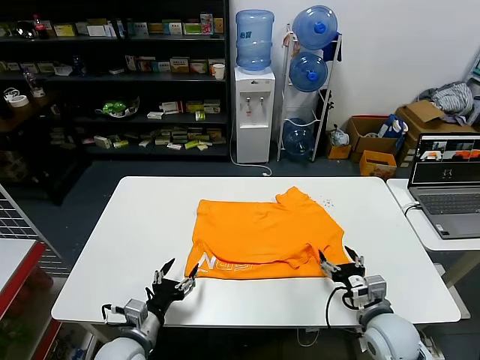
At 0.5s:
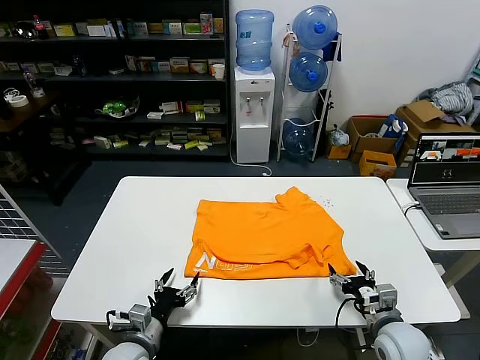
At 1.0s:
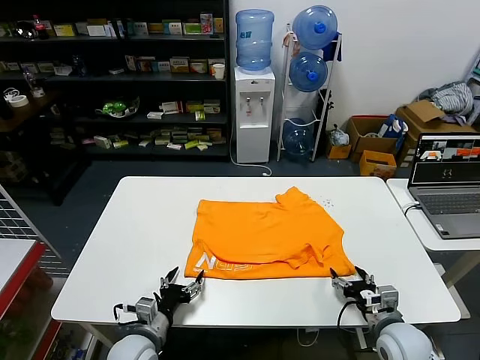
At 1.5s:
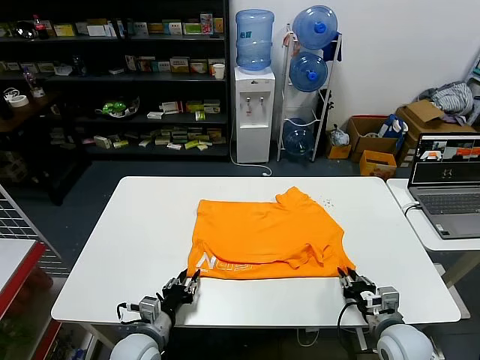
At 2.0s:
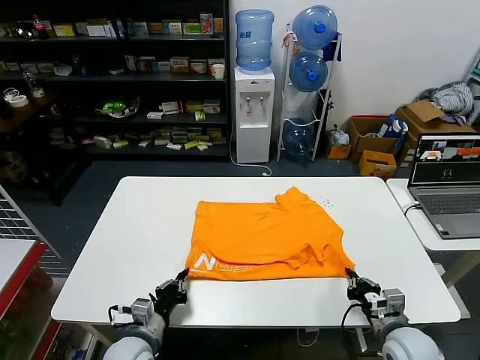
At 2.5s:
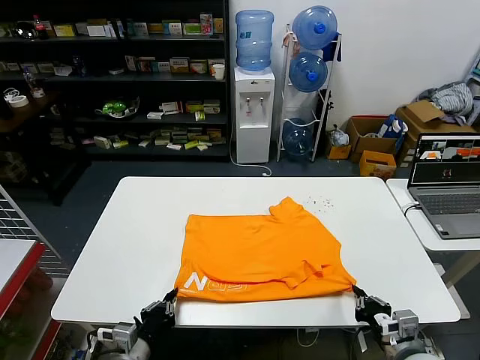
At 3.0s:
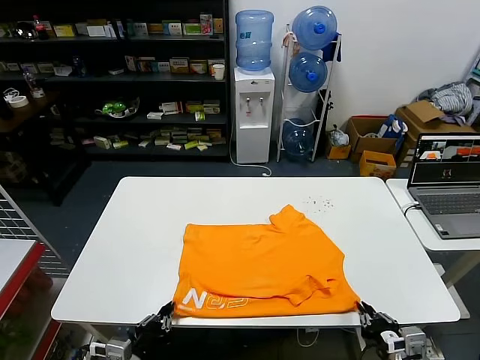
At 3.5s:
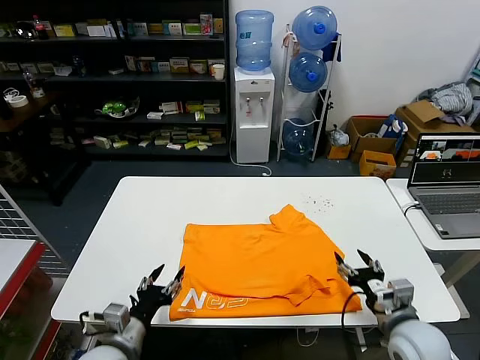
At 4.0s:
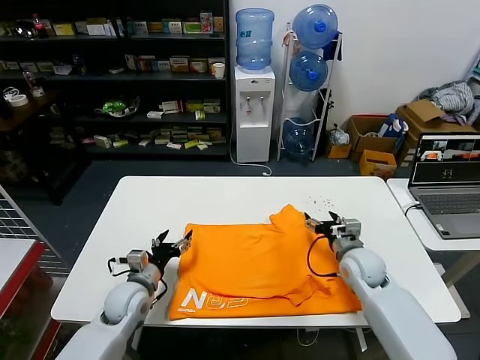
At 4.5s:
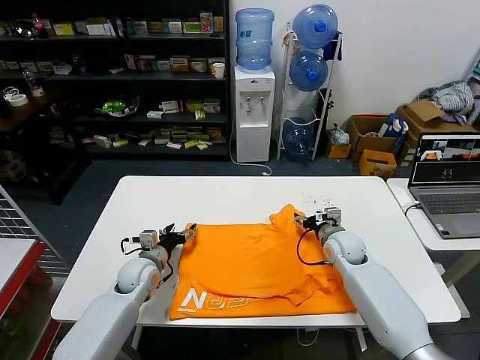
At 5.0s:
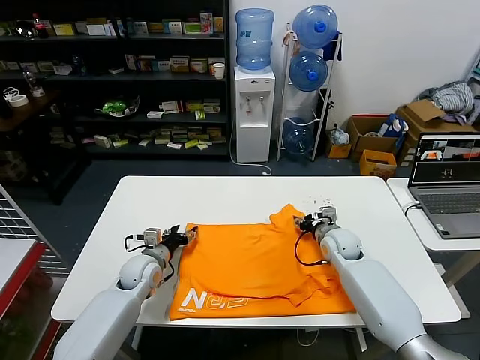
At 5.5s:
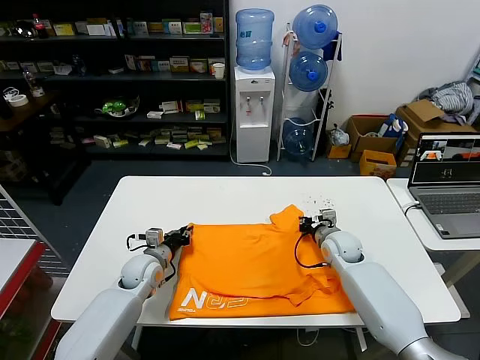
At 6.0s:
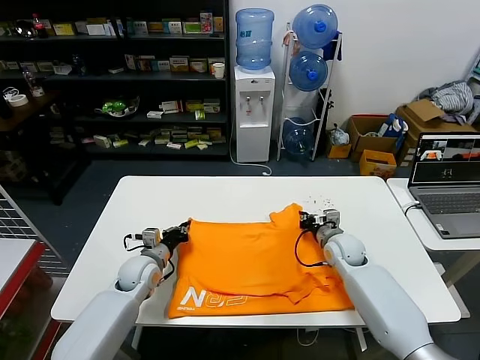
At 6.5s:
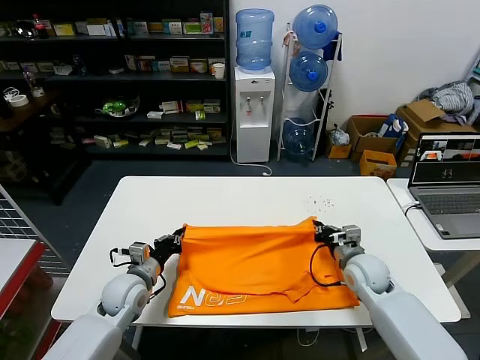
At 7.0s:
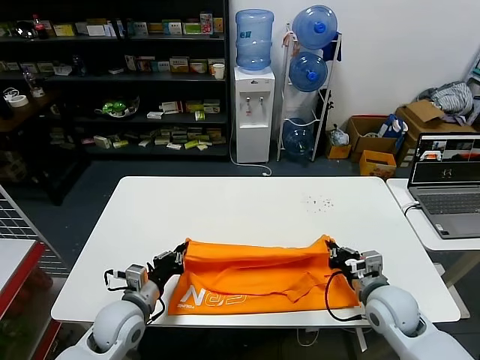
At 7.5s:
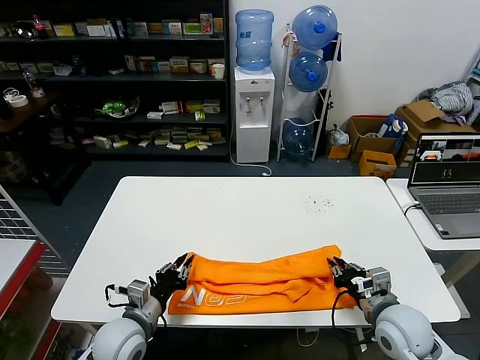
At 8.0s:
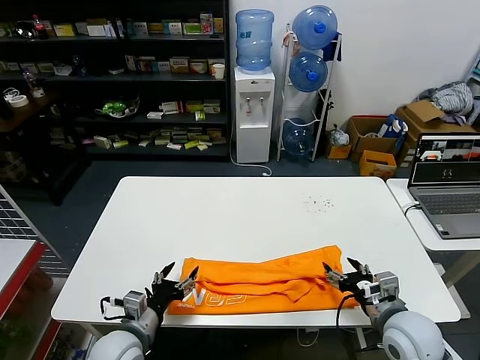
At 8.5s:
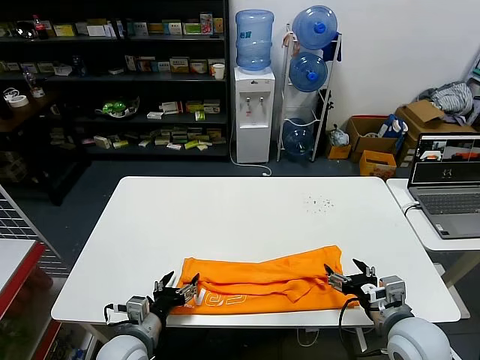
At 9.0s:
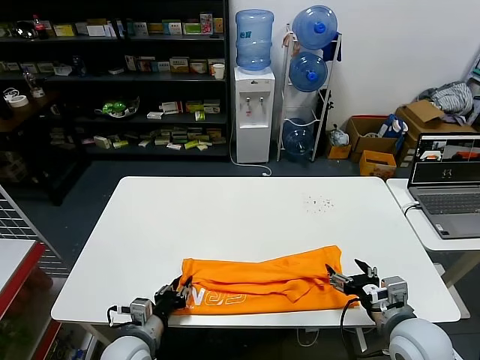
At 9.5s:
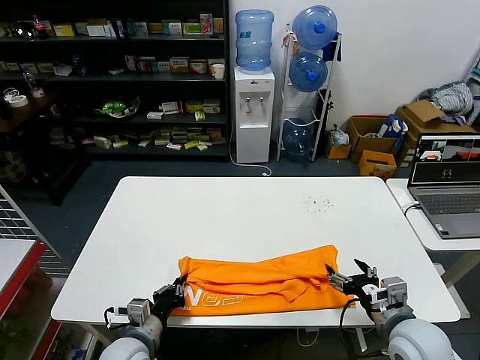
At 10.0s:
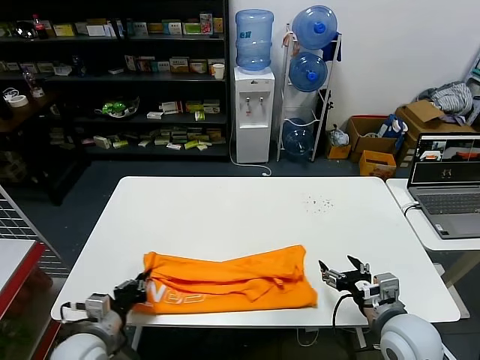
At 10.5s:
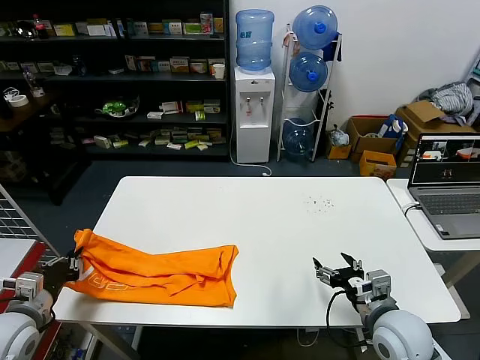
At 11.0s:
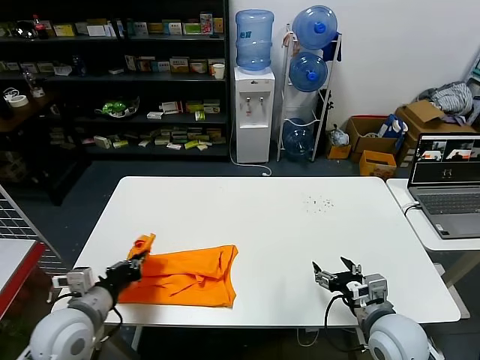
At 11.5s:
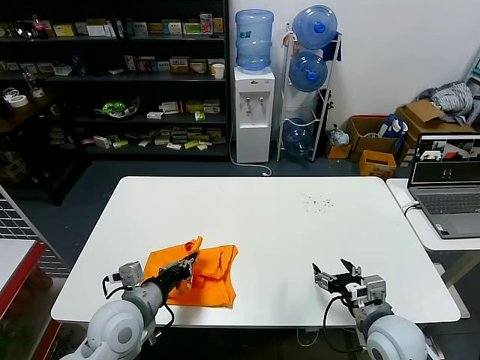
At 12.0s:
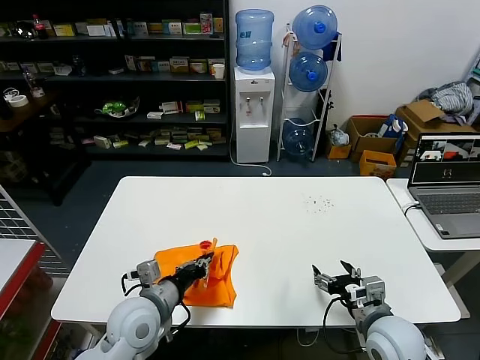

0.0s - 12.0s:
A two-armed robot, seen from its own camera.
Task of the whole recording: fold and organize the clothes.
Step, 0.0s - 3.0s: Drag the clothes downward with both gripper.
Step, 3.5s - 5.5s: use both grippers simultaneously to clamp the upper edge of the clothing fabric.
Step, 6.0s - 7.5s: use both grippers to drag the upper edge of the fabric backward and fold it over the lower edge.
Step, 8.0s - 9.0s: use the left gripper to clamp the left edge of the fabric.
0.0s - 2.0s: The right gripper closes its fingers, while the left gripper closes its fingers.
2.0s - 4.0s: The right gripper is displaced forward by about 20 cm, and opens. Meanwhile the left gripper goes roughly 10 cm forward, and opens its fingers.
4.0s - 6.0s: The right gripper shifts by some 5 cm, and closes its fingers. Meanwhile the left gripper moves forward, approximately 10 cm, and closes.
6.0s - 8.0s: Both grippers travel together backward, approximately 20 cm. The left gripper opens up; the right gripper opens.
8.0s - 10.0s: The left gripper travels to the left by approximately 5 cm, and closes its fingers.
10.0s - 12.0s: The left gripper heads to the right, upward and forward, covering about 15 cm.

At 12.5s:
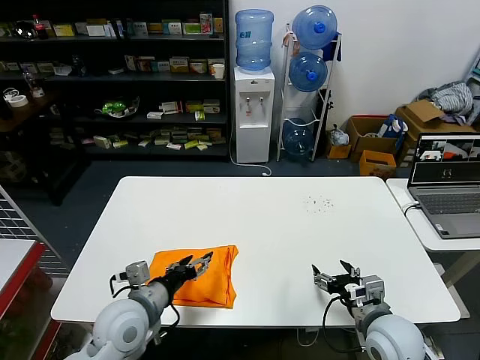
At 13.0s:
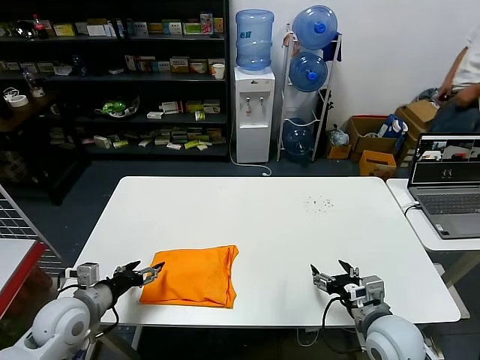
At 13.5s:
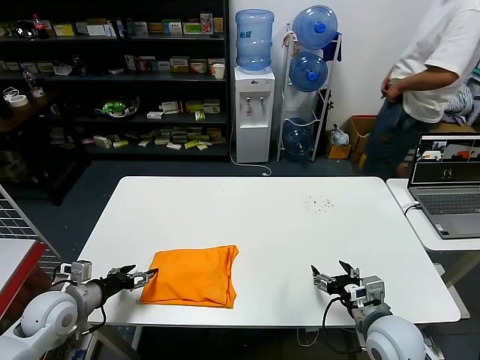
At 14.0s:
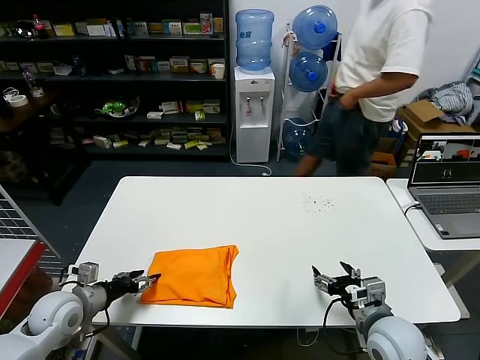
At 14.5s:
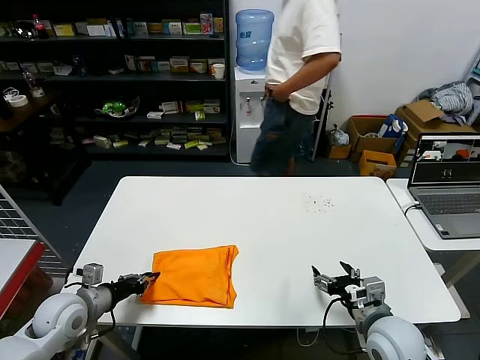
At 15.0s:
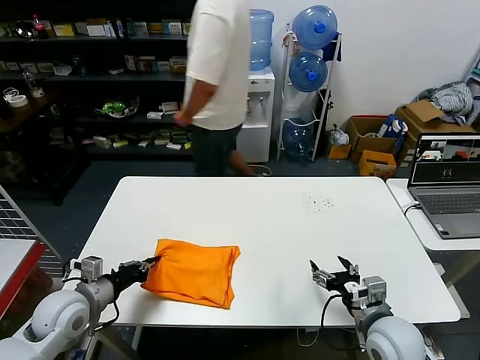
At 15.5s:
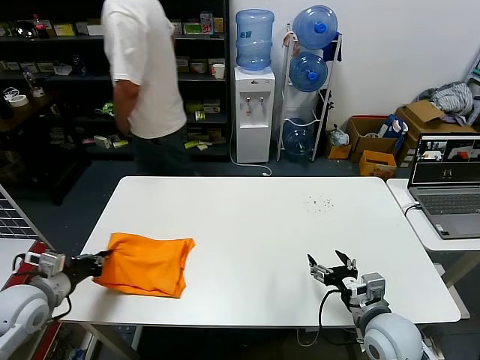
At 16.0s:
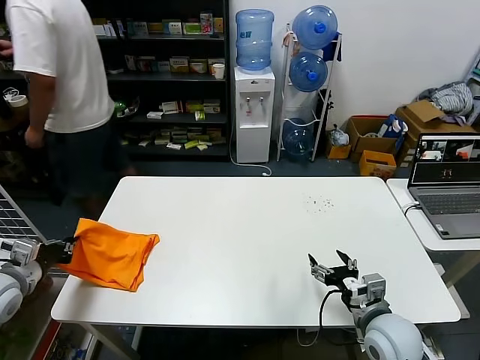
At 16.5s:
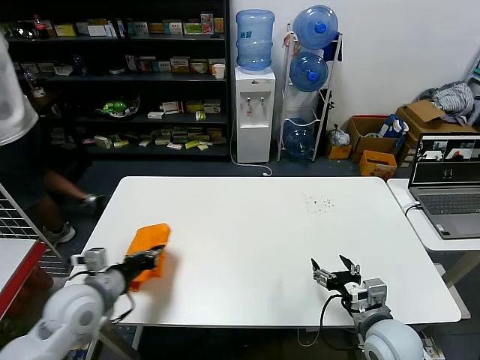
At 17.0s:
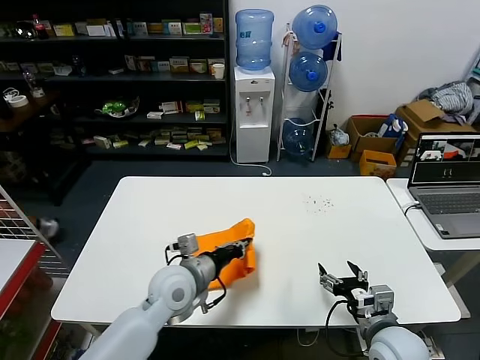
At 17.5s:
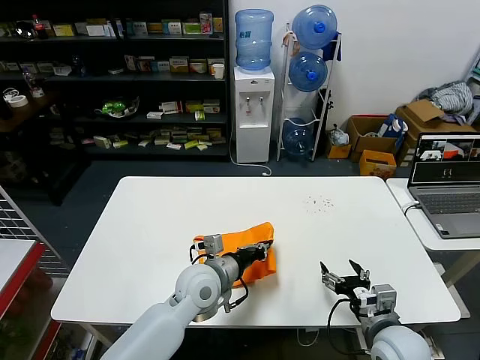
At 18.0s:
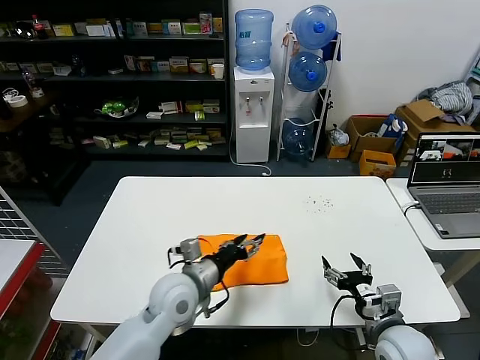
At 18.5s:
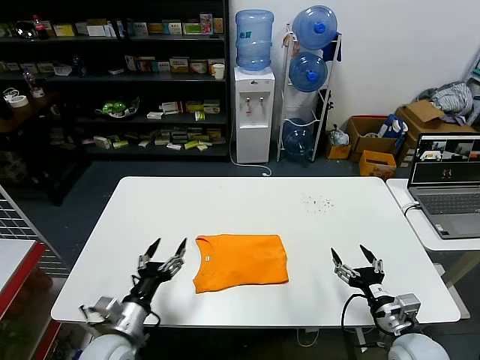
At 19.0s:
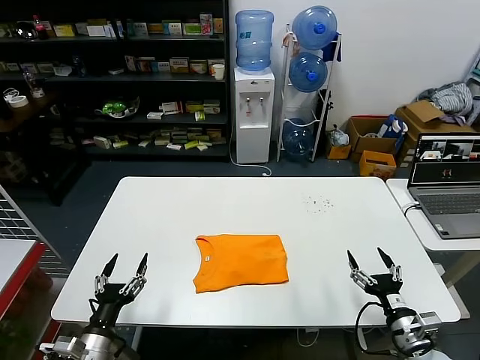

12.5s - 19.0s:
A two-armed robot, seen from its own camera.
Task of the whole recording: fold and organize the clothes.
Step, 12.5s - 17.5s: Flip the folded clothes over with left gripper.
12.5s - 14.5s: The left gripper goes about 15 cm to the left, and closes.
14.5s - 17.0s: The left gripper travels to the right by approximately 20 cm.
17.0s - 19.0s: The right gripper is displaced to the right by about 5 cm; the left gripper goes about 25 cm backward, to the left and downward, and opens up.
